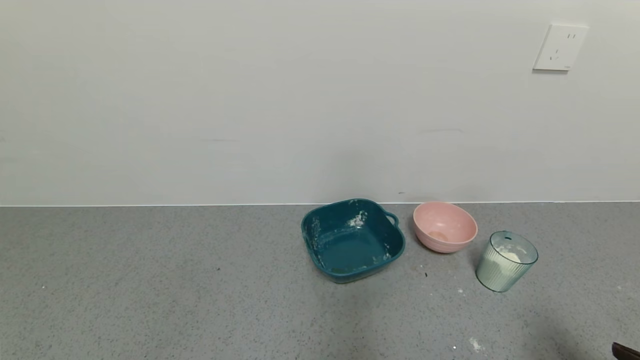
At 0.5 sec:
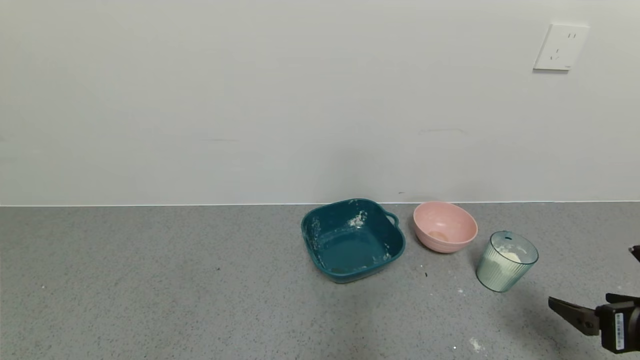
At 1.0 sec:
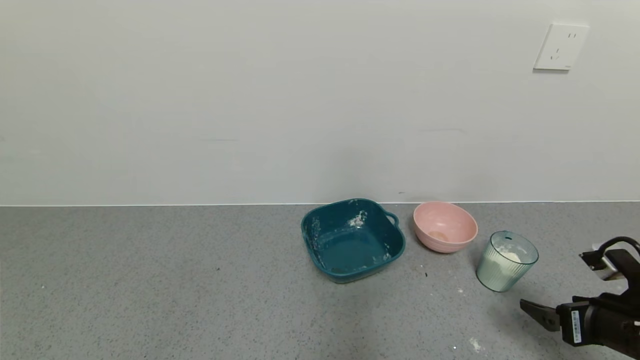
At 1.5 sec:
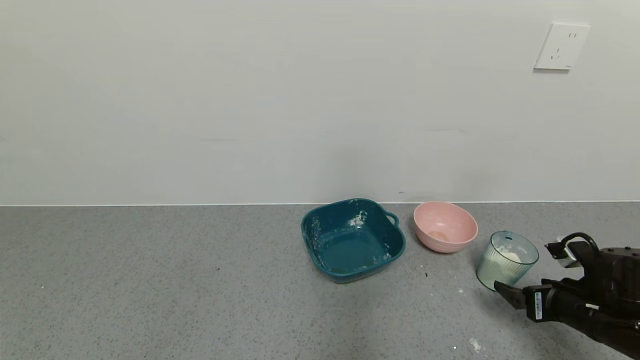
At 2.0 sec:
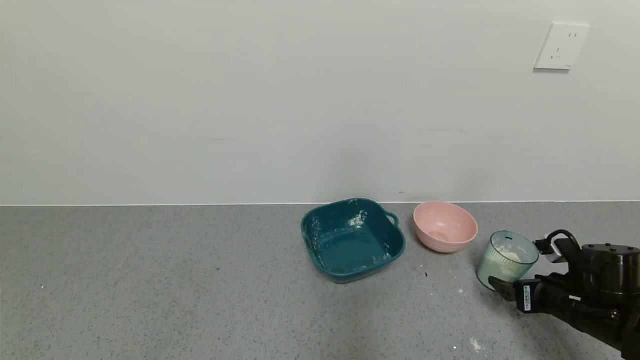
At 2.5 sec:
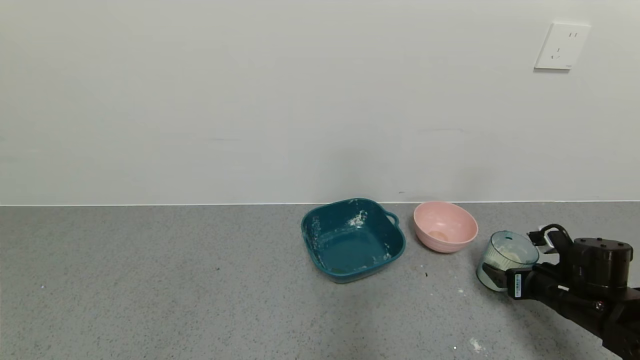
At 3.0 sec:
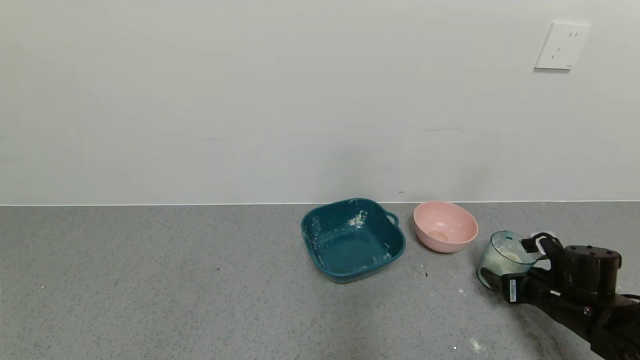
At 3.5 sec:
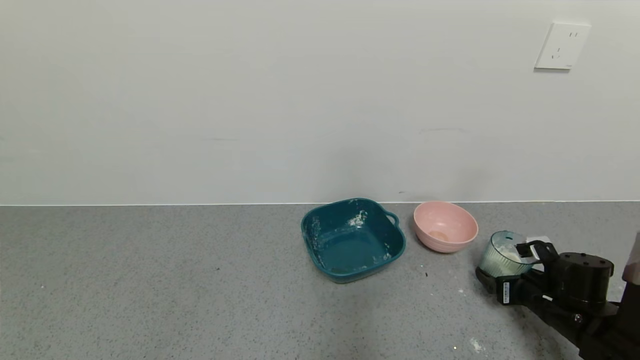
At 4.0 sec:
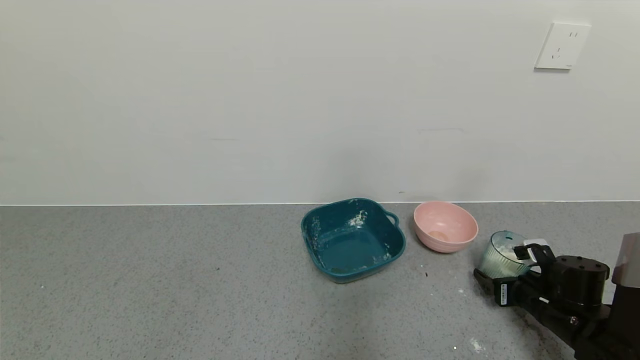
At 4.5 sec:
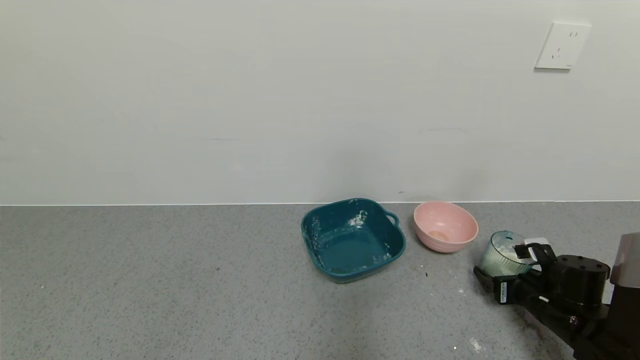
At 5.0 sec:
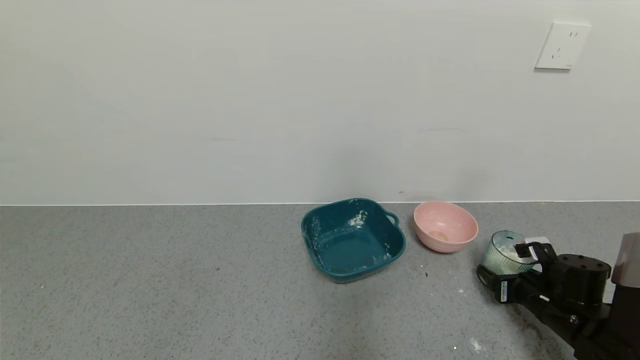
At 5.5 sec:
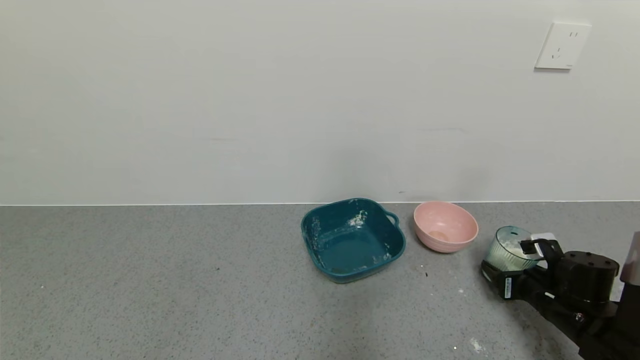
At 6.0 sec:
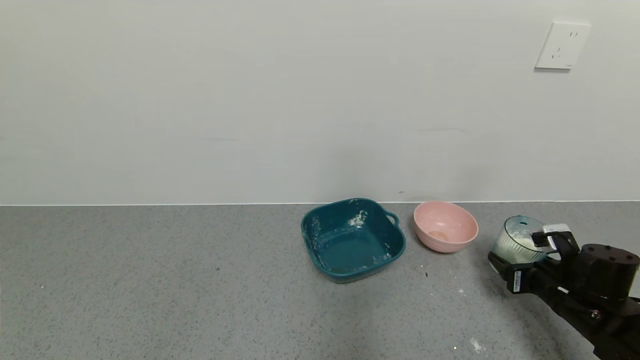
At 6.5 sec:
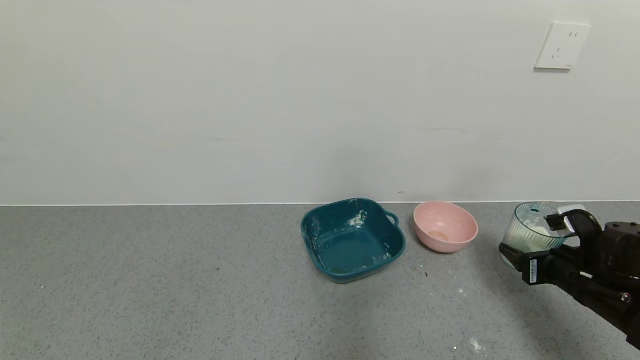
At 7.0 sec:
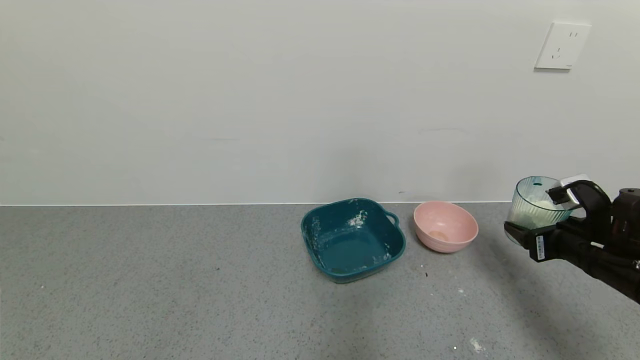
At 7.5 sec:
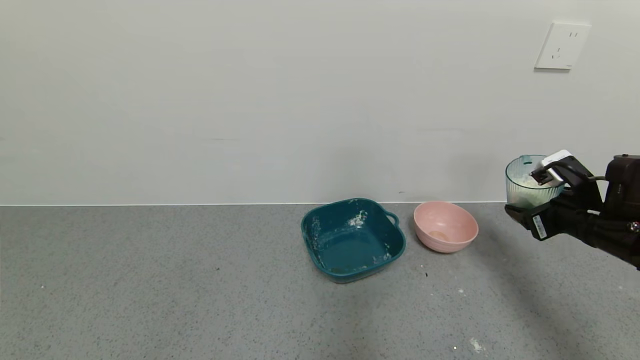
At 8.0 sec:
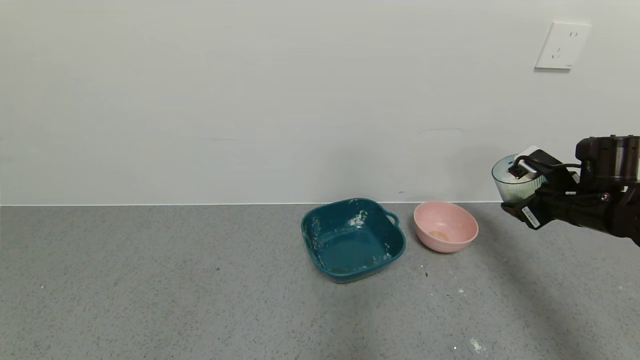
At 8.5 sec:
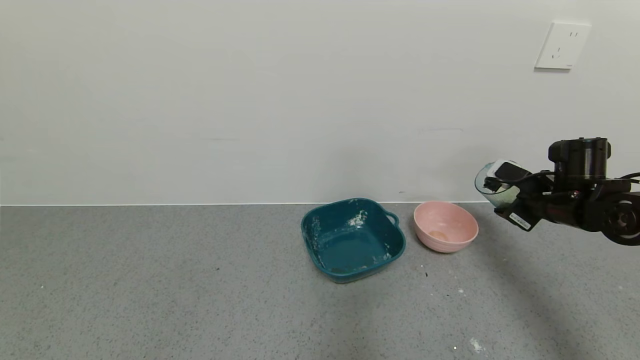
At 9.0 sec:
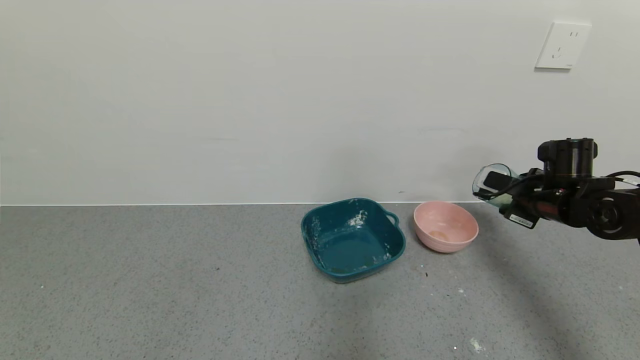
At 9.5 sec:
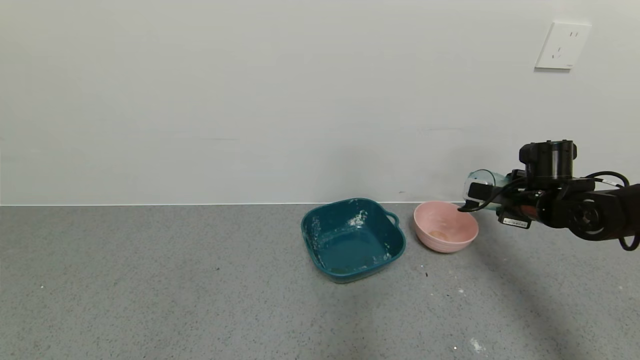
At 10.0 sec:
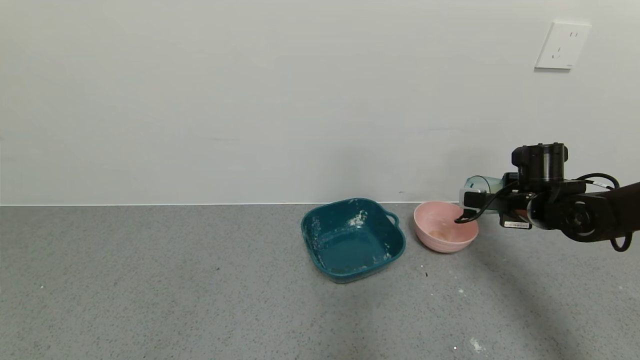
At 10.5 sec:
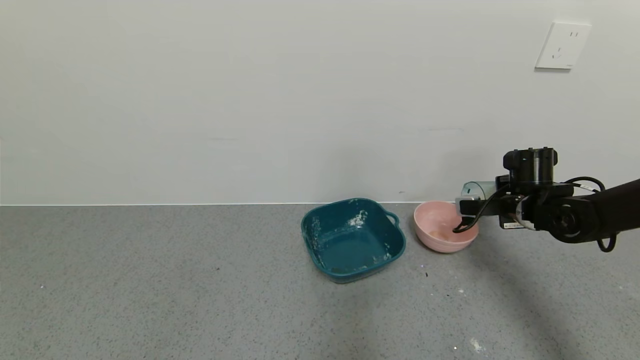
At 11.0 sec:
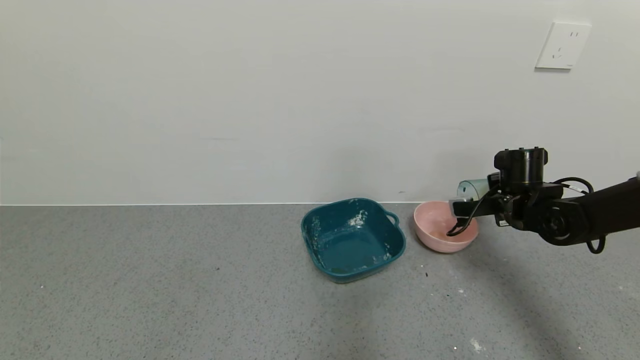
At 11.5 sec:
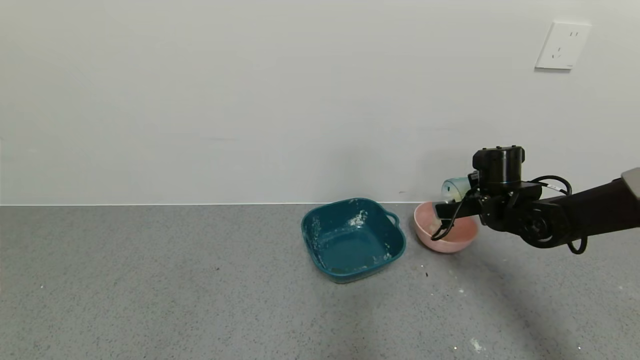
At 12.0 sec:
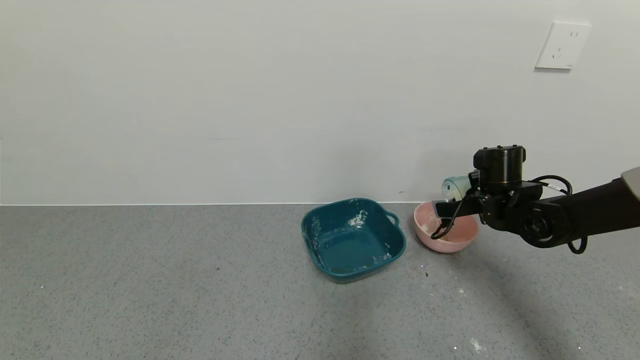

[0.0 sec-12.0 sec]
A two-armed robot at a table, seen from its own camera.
Task of the whole recording: use a gripper to pick up the cup and pour the powder into a bowl or tray.
Step, 0.0 sec to 5.0 sec: Grasp the glass of powder with the right gripper.
0.0 sec to 2.0 sec: The right gripper is displaced forward and downward by about 20 cm.
2.0 sec to 4.0 sec: The right gripper ends up some 5 cm from where it was.
4.0 sec to 6.0 sec: The right gripper closes.
6.0 sec to 8.0 sec: The right gripper travels upward and forward by roughly 15 cm.
8.0 sec to 10.0 sec: The right gripper moves forward, some 5 cm.
10.0 sec to 12.0 sec: The right gripper goes roughly 5 cm to the left.

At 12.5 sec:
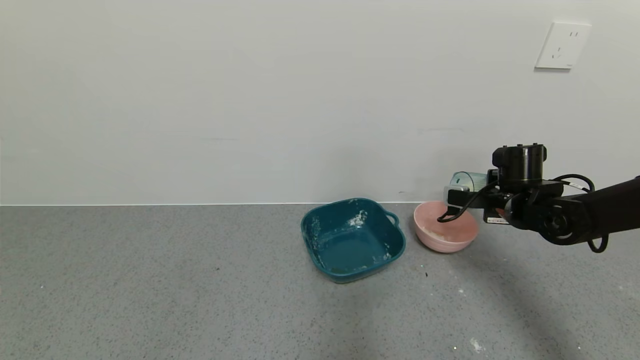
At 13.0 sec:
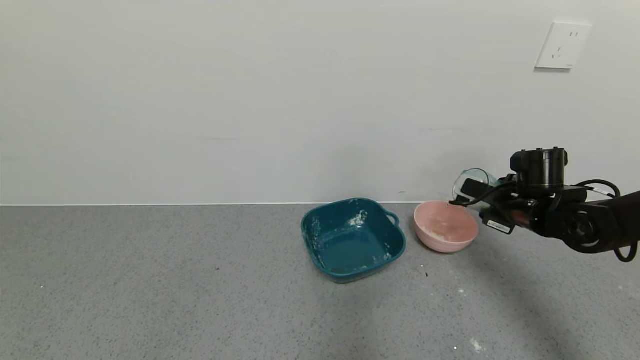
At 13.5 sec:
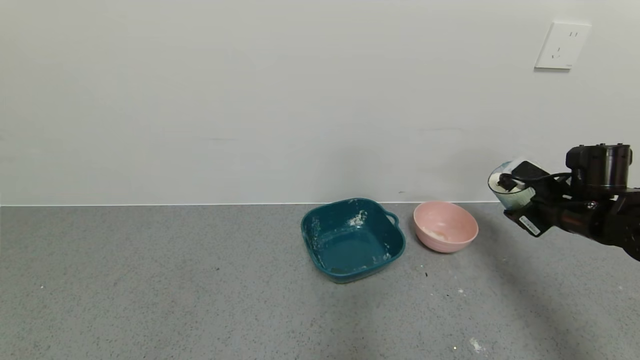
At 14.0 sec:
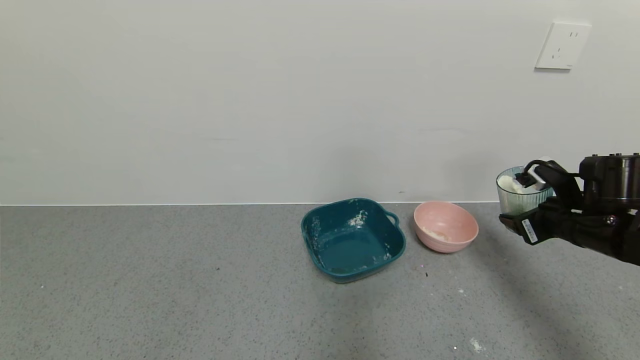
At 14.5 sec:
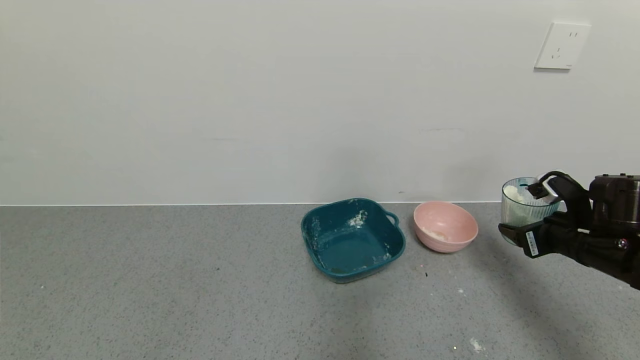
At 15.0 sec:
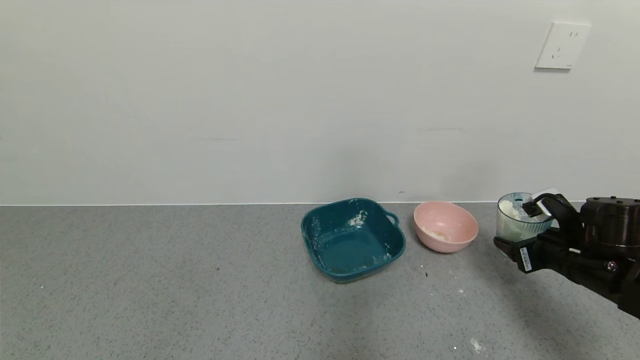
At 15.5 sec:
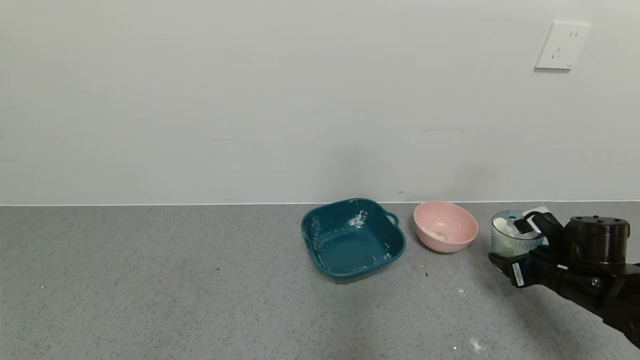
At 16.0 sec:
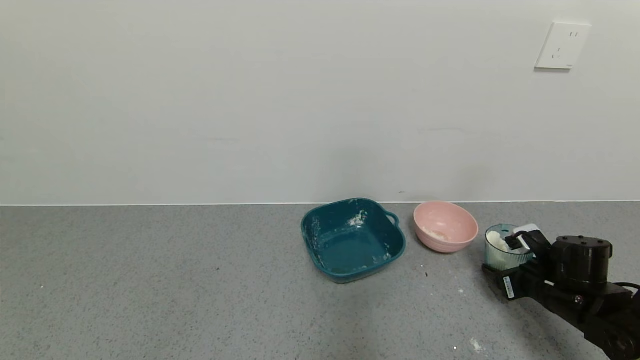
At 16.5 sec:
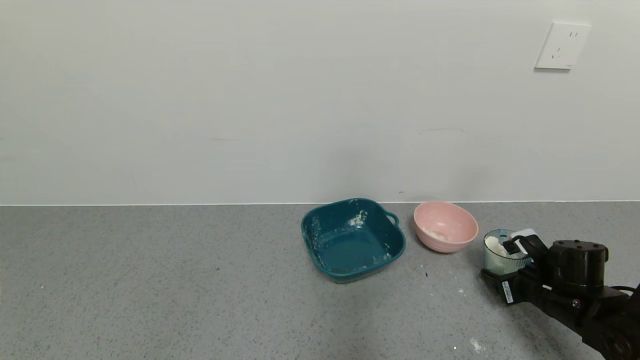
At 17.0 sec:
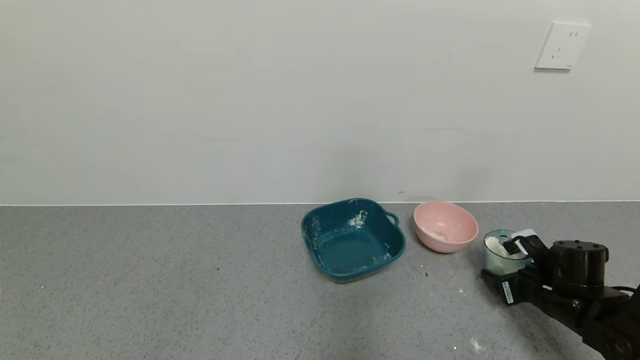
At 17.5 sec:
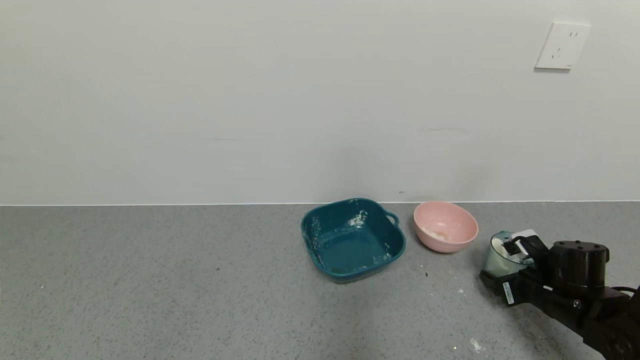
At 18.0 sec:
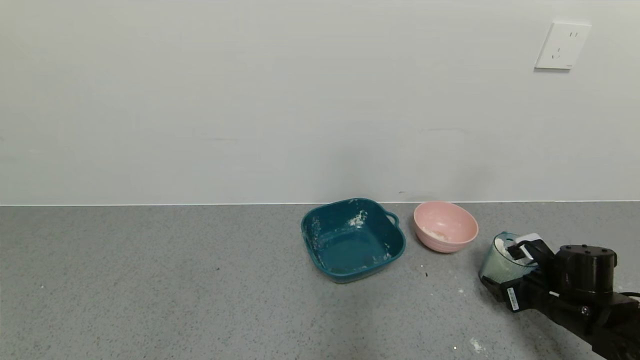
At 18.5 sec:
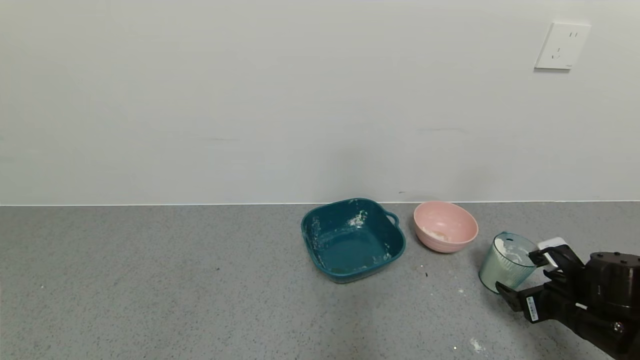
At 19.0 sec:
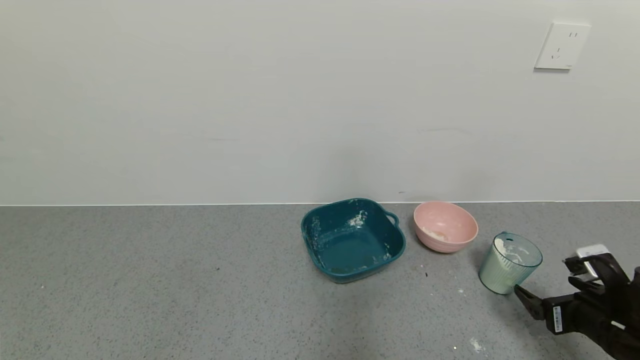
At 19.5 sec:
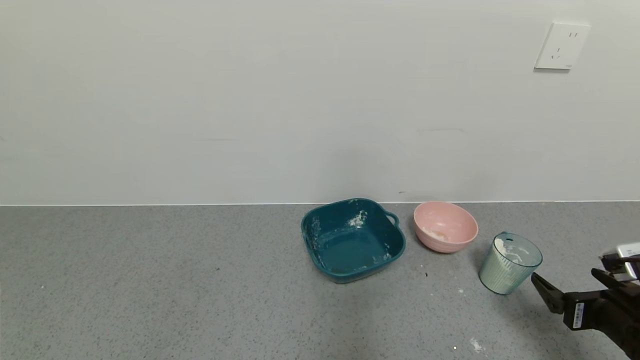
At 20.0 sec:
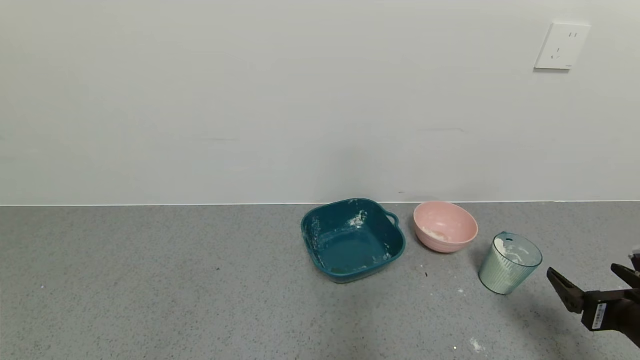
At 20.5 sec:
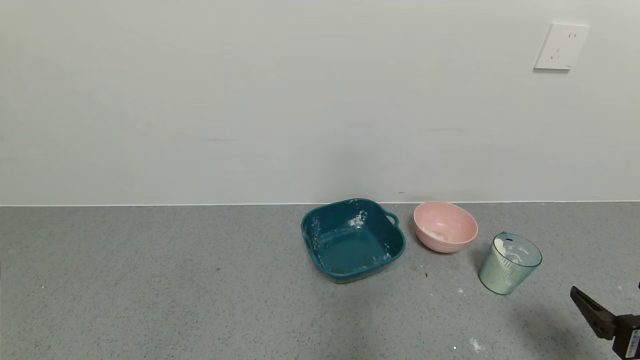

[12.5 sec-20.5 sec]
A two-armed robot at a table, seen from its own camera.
Task of the whole recording: use a gripper to pick up the cup and pour the powder into a bowl or tray.
Step, 12.5 sec to 18.0 sec: Place the glass cup down with the right gripper.
12.5 sec to 14.5 sec: The right gripper travels backward and to the right by some 10 cm.
14.5 sec to 16.5 sec: The right gripper heads downward, covering roughly 10 cm.
16.5 sec to 18.5 sec: The right gripper moves backward, approximately 5 cm, and opens.
18.5 sec to 20.5 sec: The right gripper travels backward and upward by about 15 cm.
